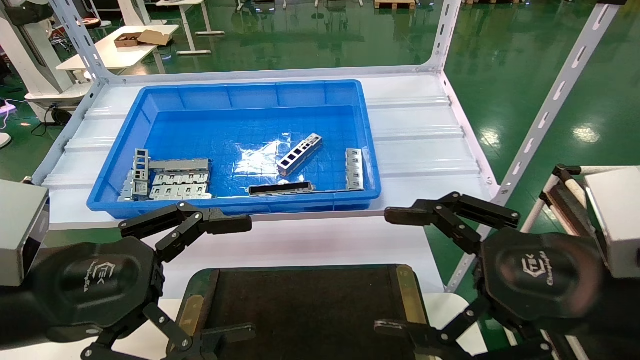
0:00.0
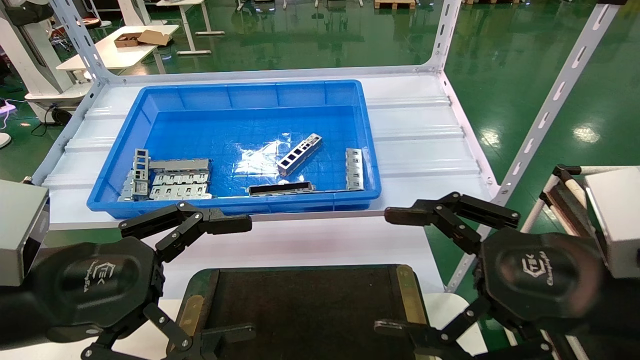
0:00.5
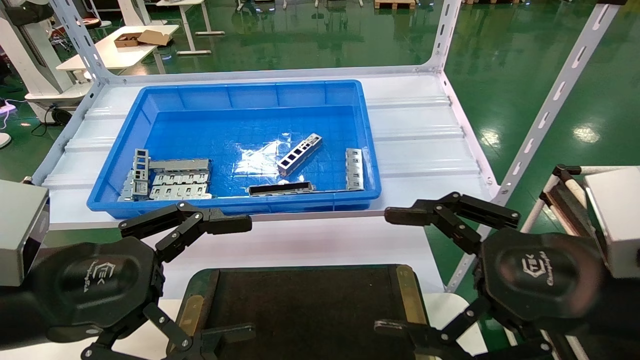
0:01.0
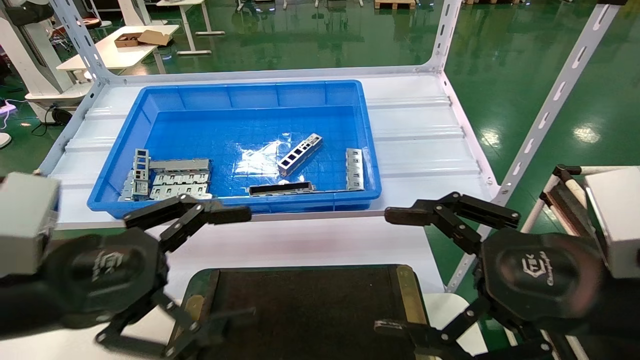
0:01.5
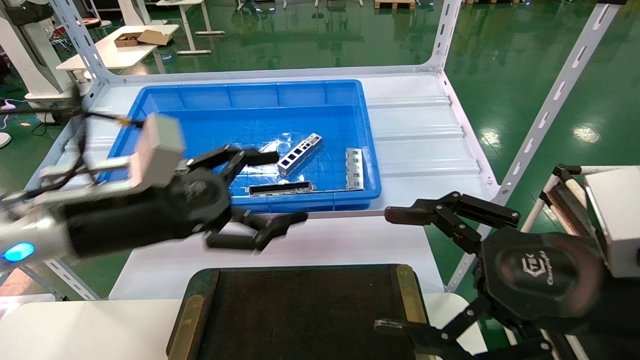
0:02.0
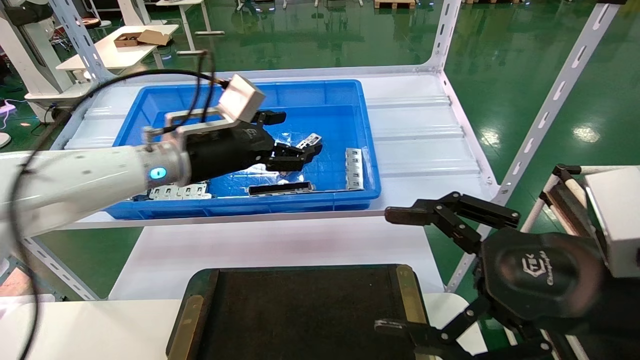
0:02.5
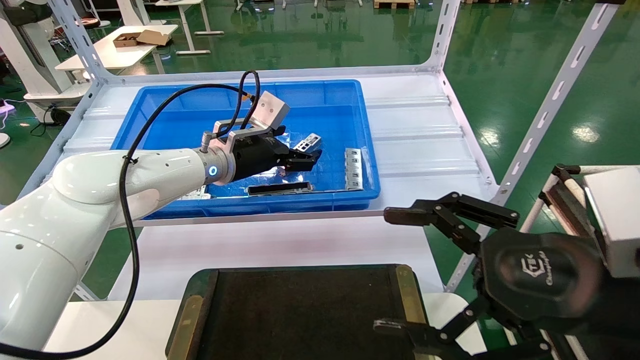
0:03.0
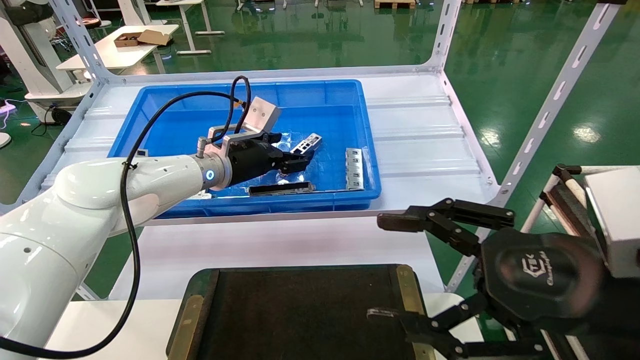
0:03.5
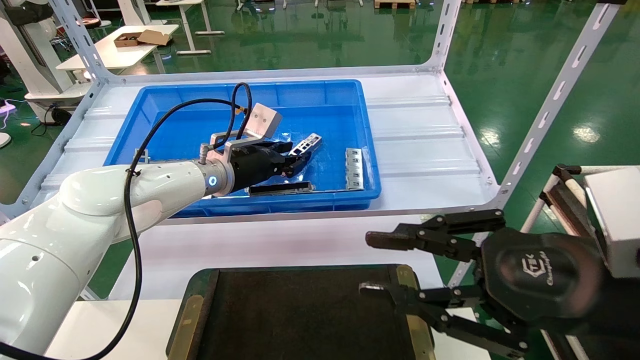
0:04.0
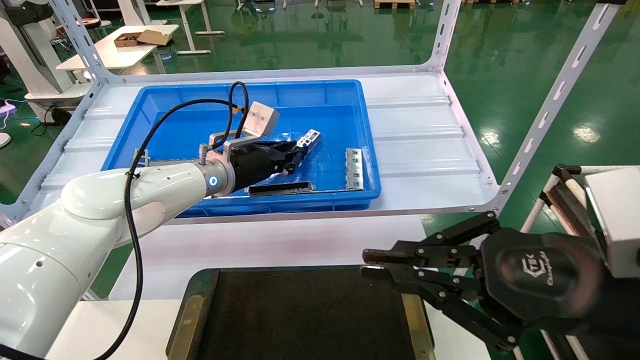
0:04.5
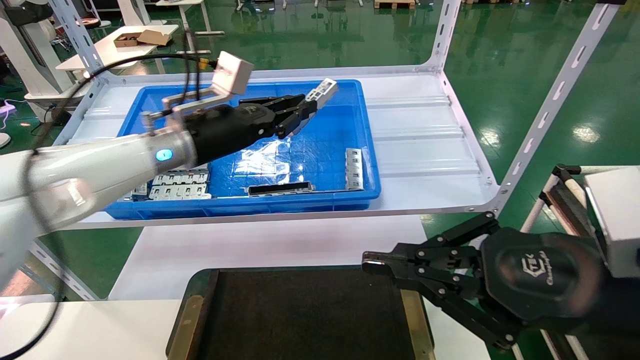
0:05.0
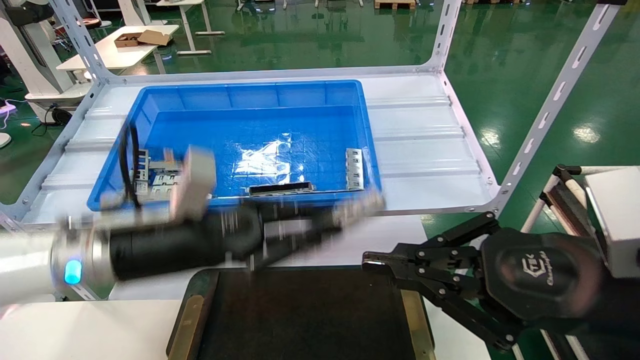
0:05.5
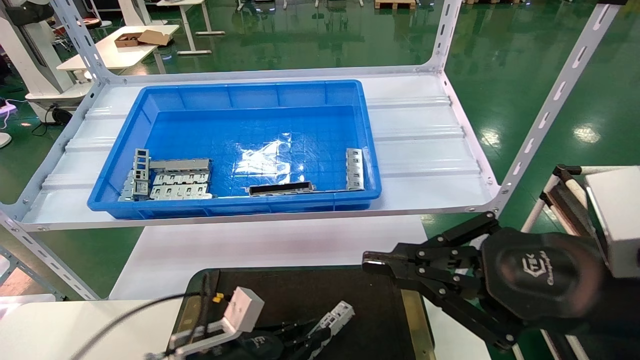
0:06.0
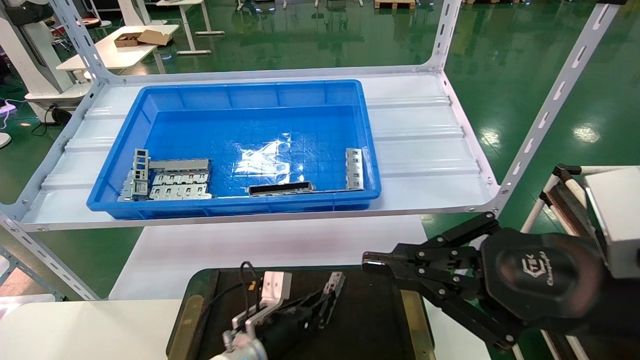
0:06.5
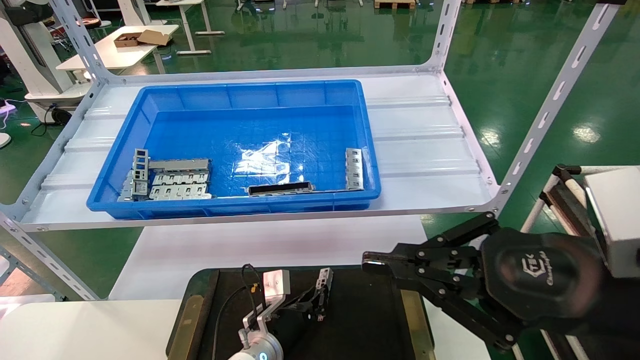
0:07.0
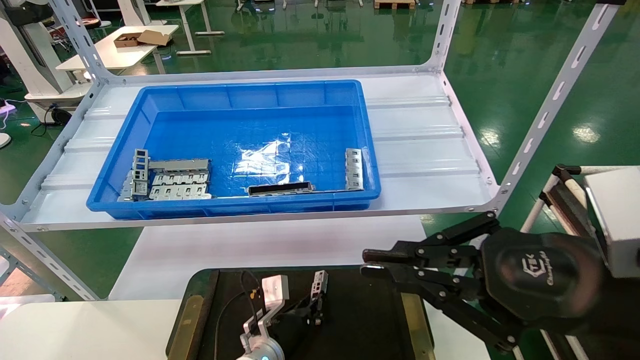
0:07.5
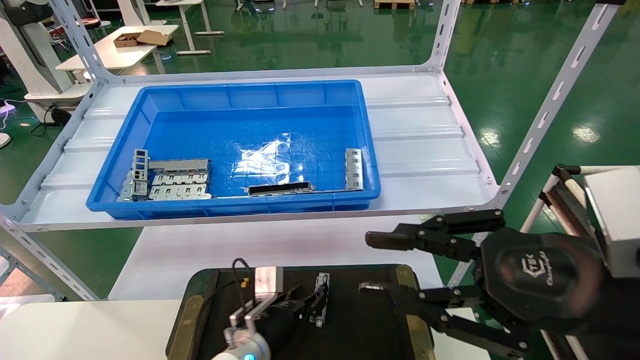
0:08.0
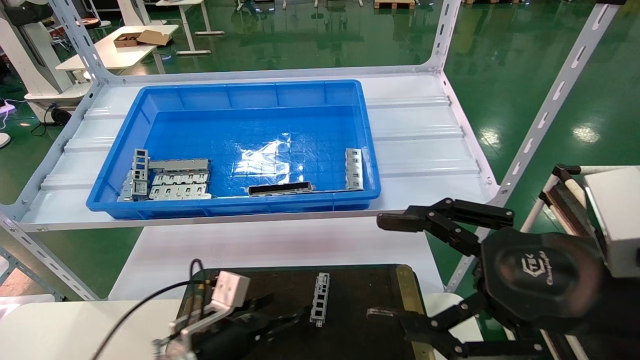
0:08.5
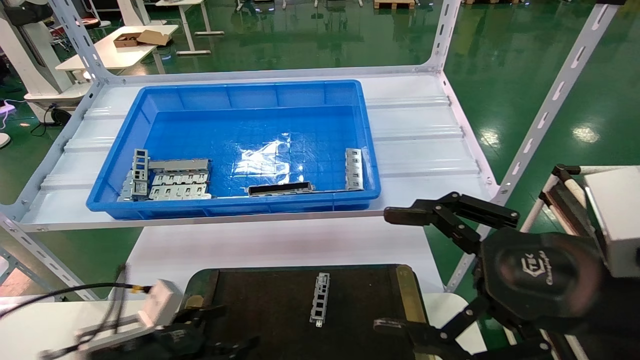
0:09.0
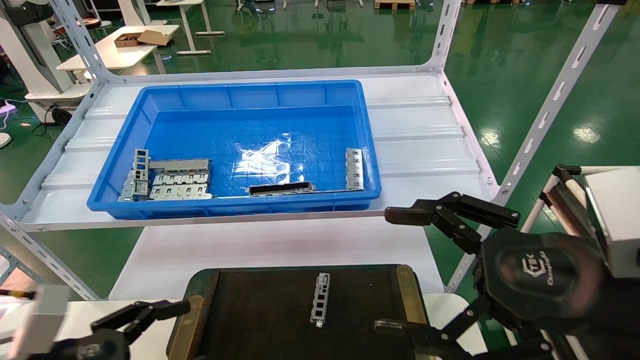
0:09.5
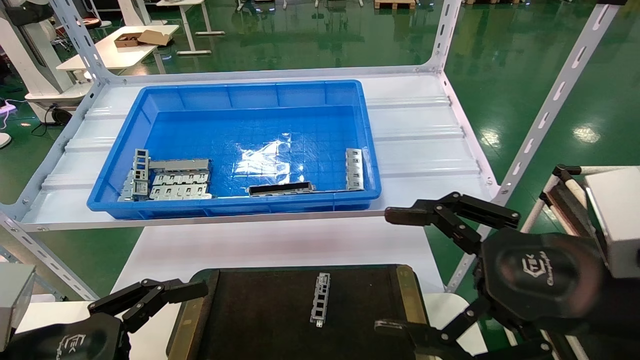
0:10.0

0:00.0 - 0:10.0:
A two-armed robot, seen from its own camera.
Task of the whole recording: Grasp the part with one hand and place it on the black container.
Step, 0:01.5 - 0:04.5: Pick up the front USB bracket from the feeding area.
Step, 0:05.0 - 0:07.5: Place the front USB bracket into the box.
0:00.0 - 0:02.0: The left gripper shifts about 10 cm forward.
0:02.0 - 0:04.0: The left gripper travels forward by approximately 20 cm, and closes its fingers. Meanwhile the right gripper closes.
0:04.0 - 0:06.0: The left gripper is displaced downward and backward by approximately 30 cm, and closes its fingers. Meanwhile the right gripper closes its fingers.
0:06.0 - 0:08.0: The left gripper is displaced forward, to the right and downward by about 10 cm.
0:08.0 - 0:10.0: The right gripper opens up, while the left gripper shifts some 35 cm backward, to the left and upward, and opens up.

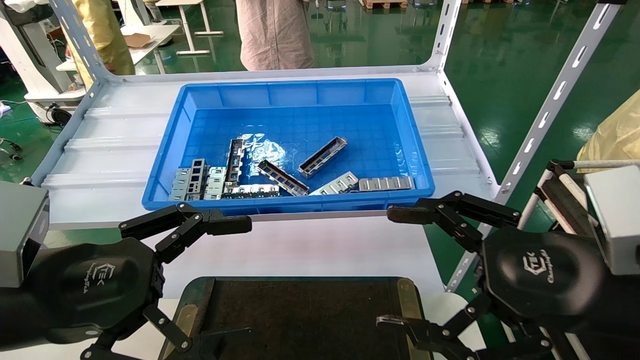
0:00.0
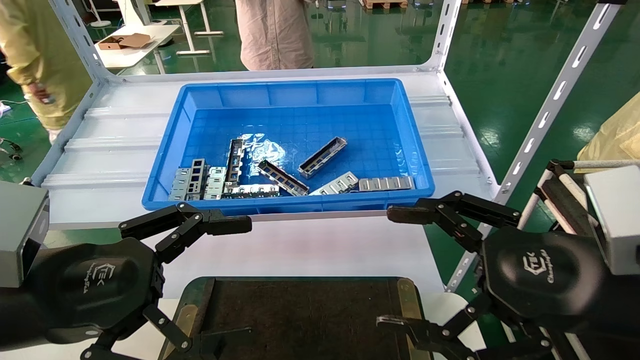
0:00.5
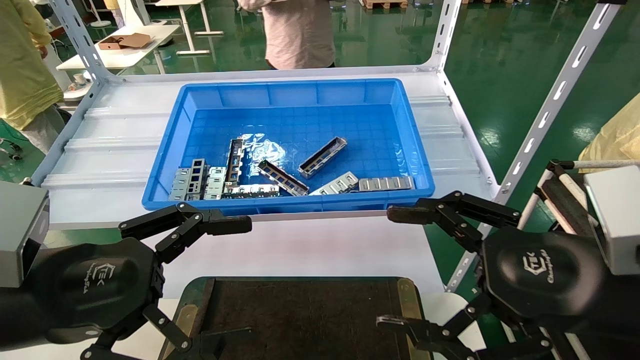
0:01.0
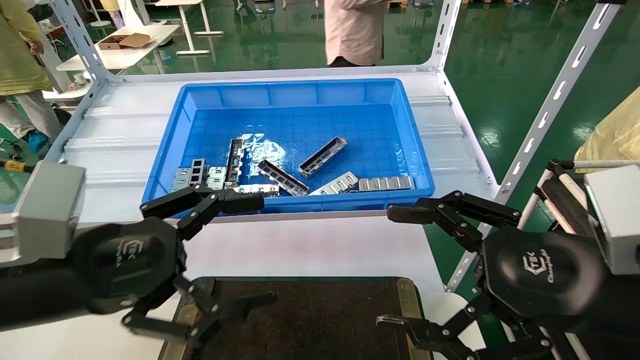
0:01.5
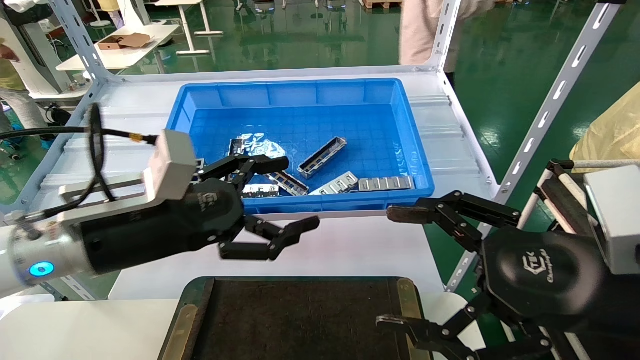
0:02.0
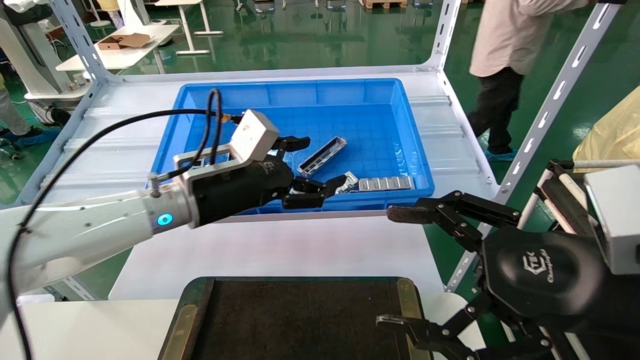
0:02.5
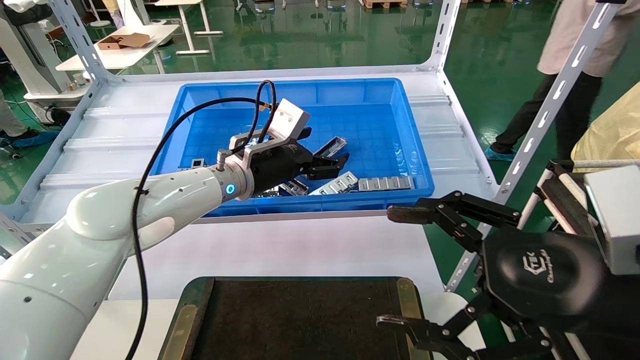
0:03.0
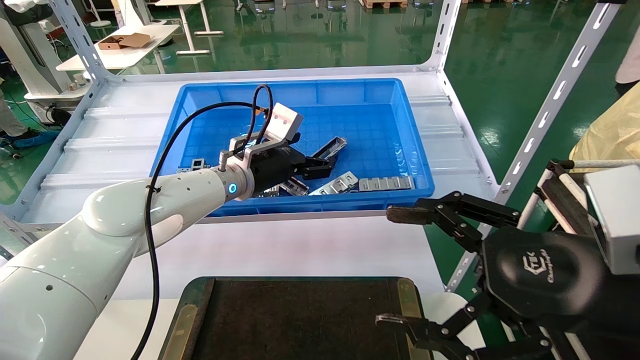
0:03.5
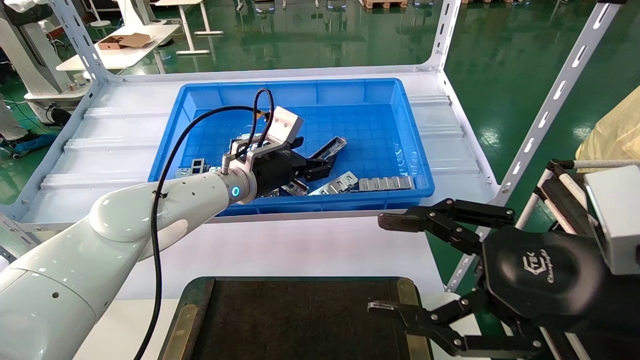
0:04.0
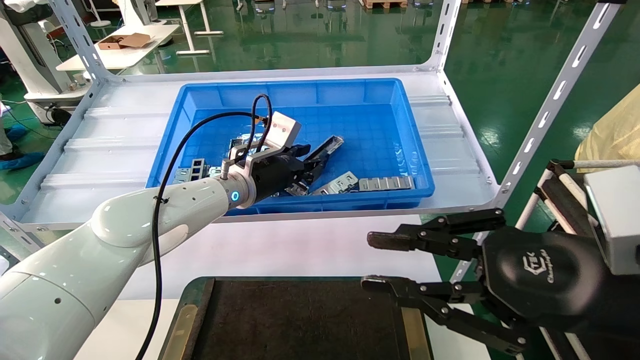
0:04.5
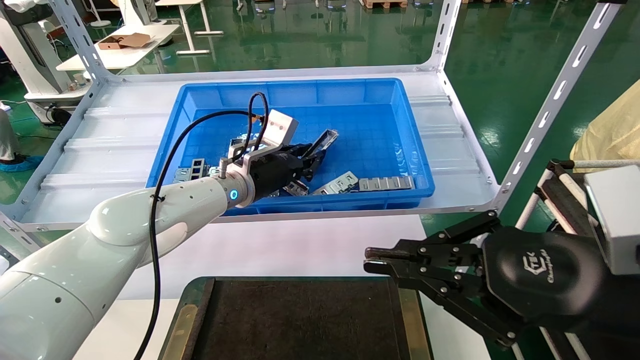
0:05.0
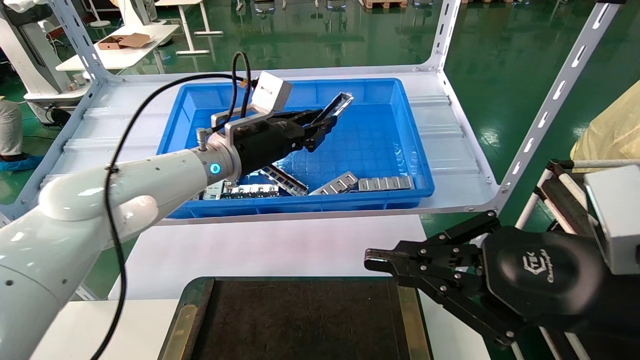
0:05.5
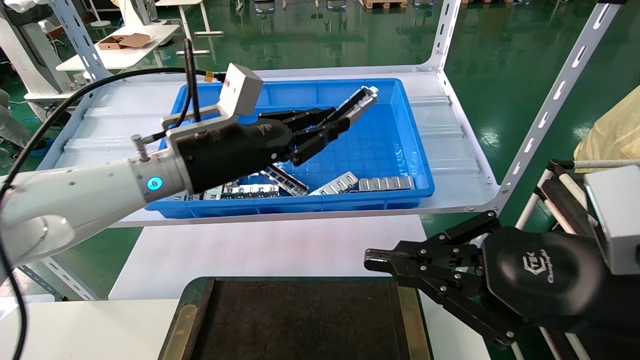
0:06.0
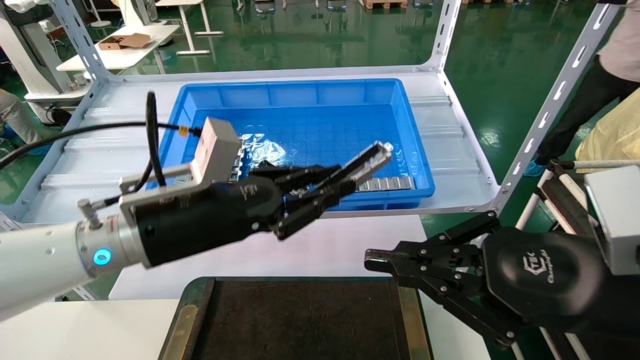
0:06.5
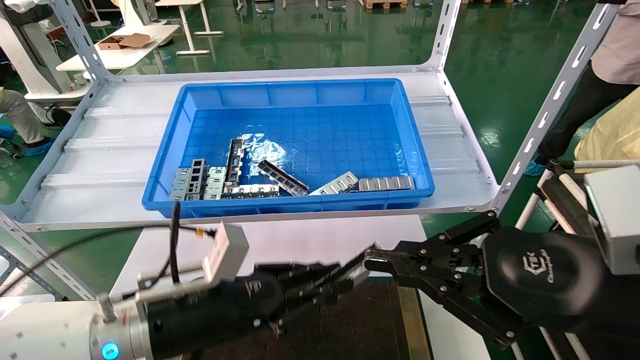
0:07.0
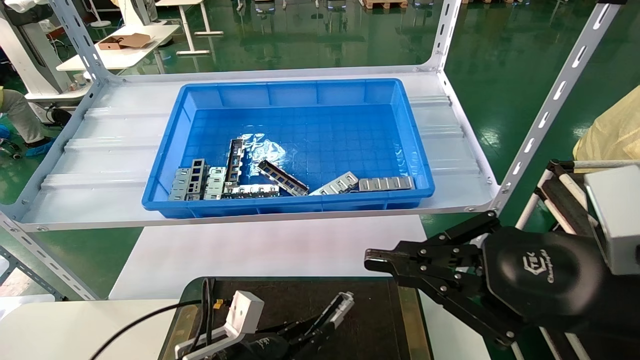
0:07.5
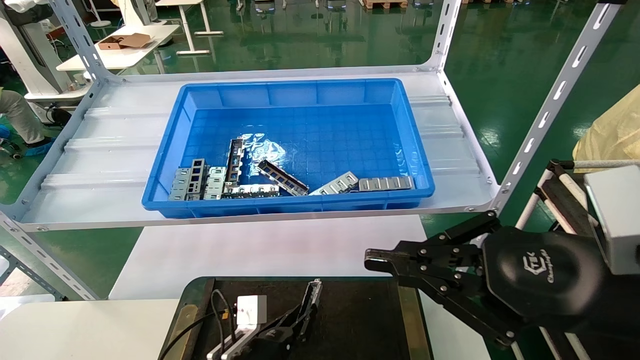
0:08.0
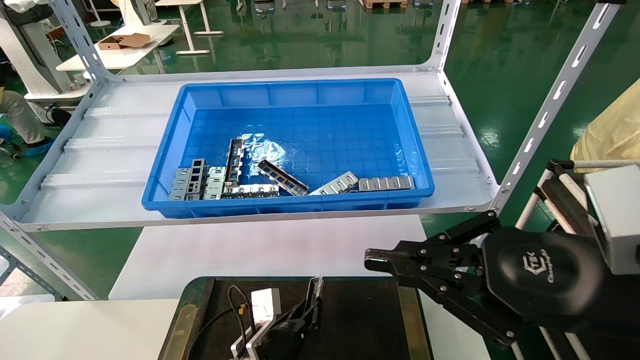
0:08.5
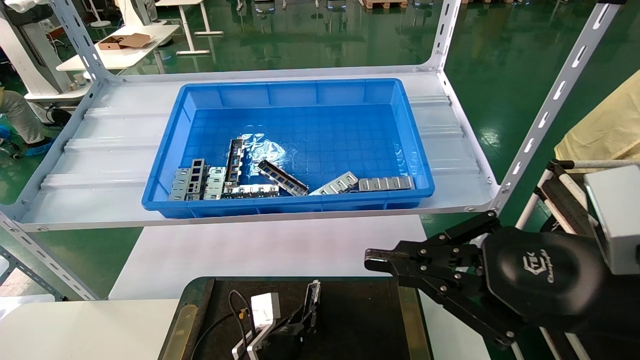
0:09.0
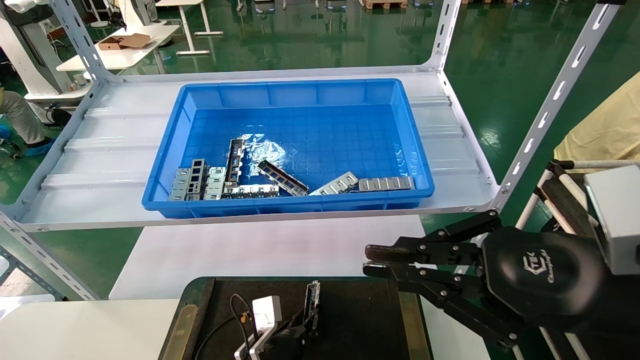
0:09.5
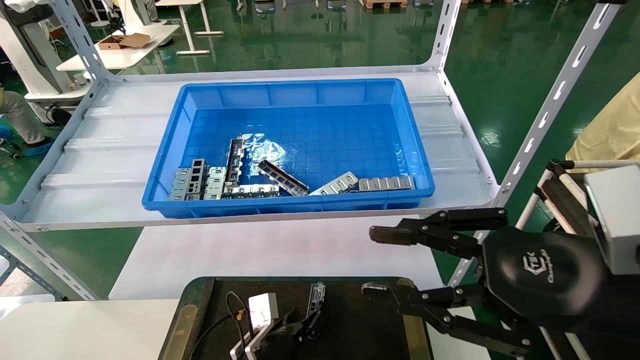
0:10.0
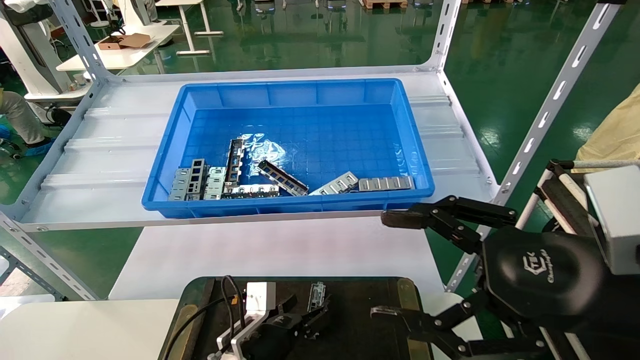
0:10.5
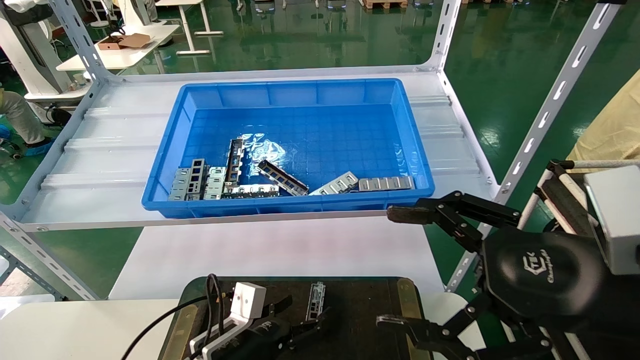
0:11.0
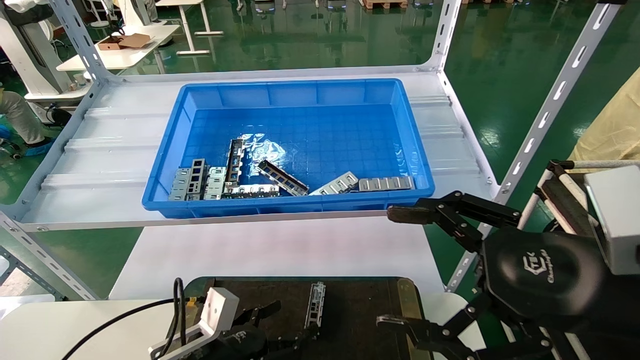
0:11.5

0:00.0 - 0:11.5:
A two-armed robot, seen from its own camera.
Task of the whole recording: Grasp the part with one hand and place it on the black container.
Step, 0:01.5 - 0:04.5: Pick up the front USB bracket from the feeding area.
Step, 0:05.0 - 0:09.5: Place the front USB bracket into the box.
0:00.0 - 0:02.0: The left gripper heads forward and to the right, covering some 10 cm.
0:02.0 - 0:04.0: The left gripper moves forward and to the right, approximately 20 cm.
0:04.0 - 0:06.0: The left gripper goes some 10 cm backward, and closes up, while the right gripper closes.
0:06.0 - 0:07.5: The left gripper travels downward by about 30 cm.
0:07.5 - 0:09.5: The left gripper travels downward, to the right and forward by roughly 15 cm.
0:09.5 - 0:11.5: The left gripper heads to the left, upward and backward, covering some 15 cm, and opens. The right gripper opens.
